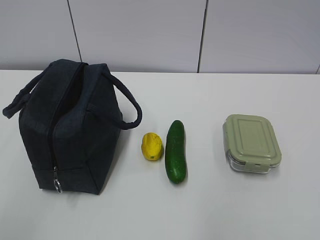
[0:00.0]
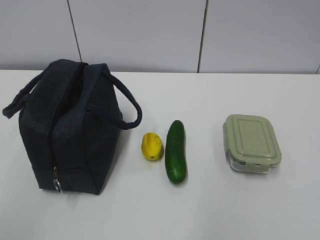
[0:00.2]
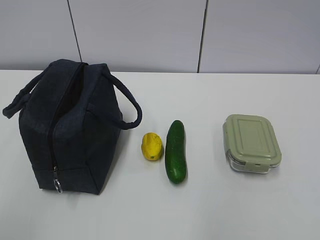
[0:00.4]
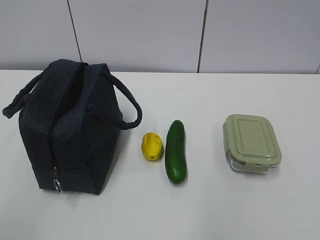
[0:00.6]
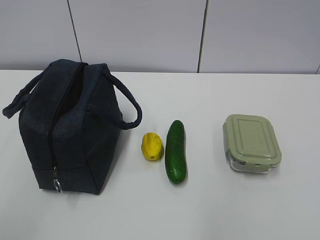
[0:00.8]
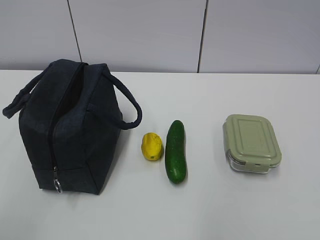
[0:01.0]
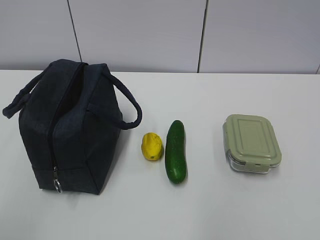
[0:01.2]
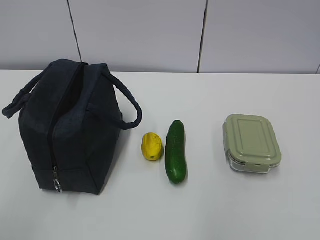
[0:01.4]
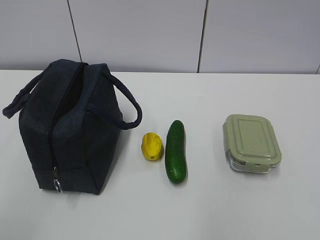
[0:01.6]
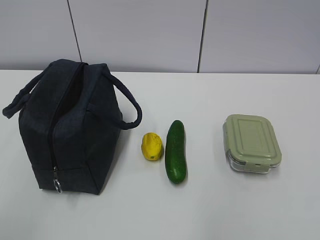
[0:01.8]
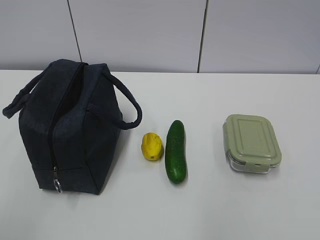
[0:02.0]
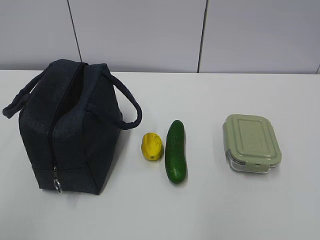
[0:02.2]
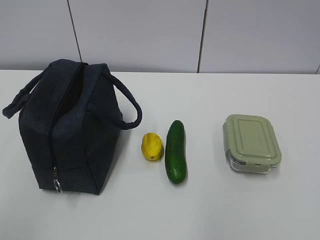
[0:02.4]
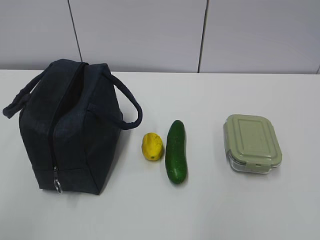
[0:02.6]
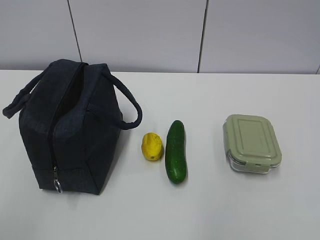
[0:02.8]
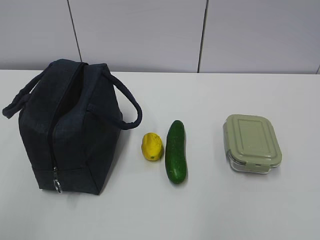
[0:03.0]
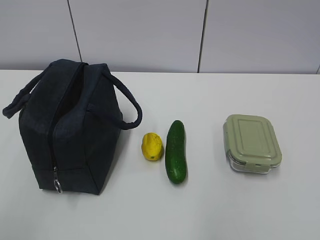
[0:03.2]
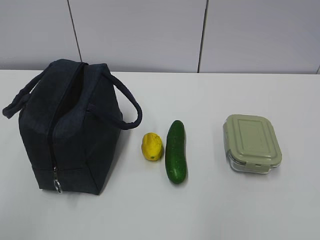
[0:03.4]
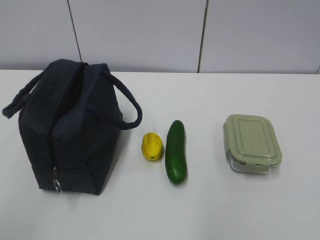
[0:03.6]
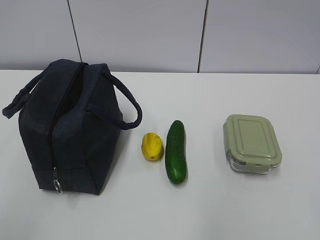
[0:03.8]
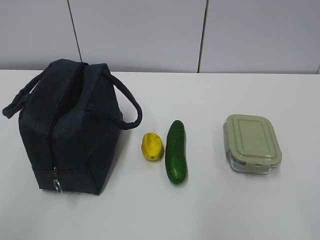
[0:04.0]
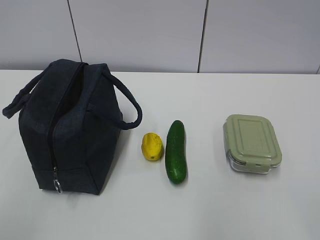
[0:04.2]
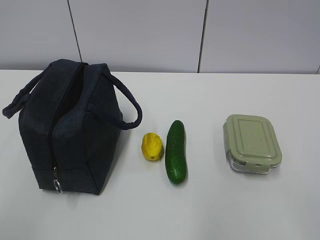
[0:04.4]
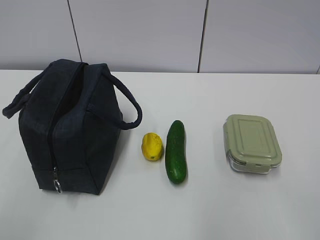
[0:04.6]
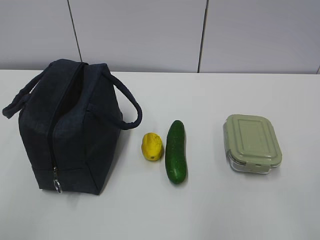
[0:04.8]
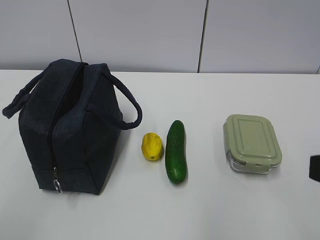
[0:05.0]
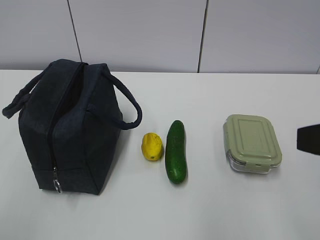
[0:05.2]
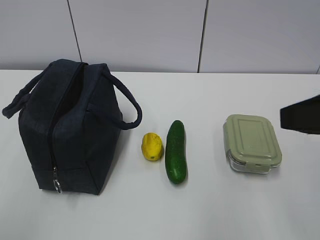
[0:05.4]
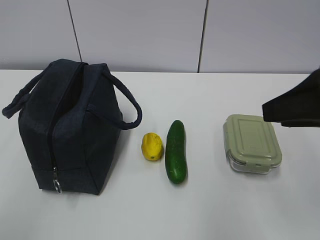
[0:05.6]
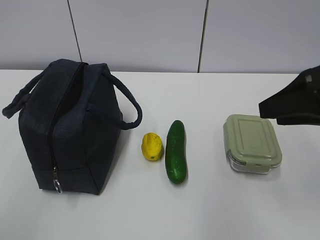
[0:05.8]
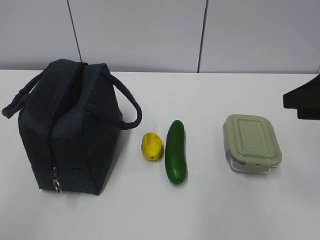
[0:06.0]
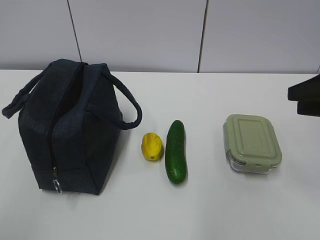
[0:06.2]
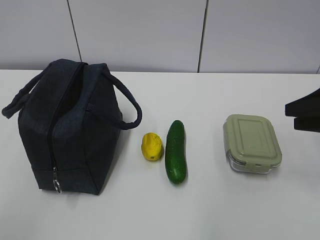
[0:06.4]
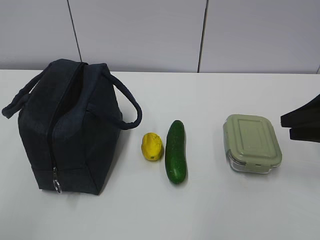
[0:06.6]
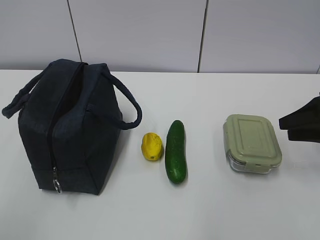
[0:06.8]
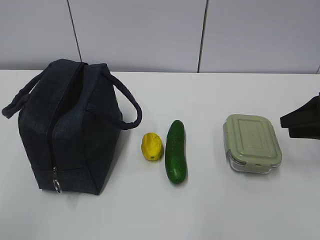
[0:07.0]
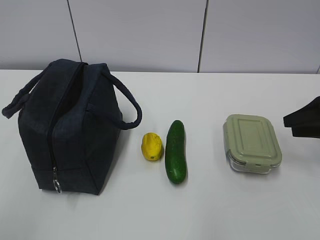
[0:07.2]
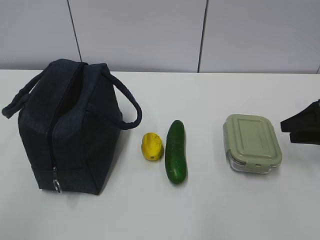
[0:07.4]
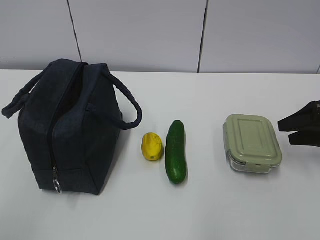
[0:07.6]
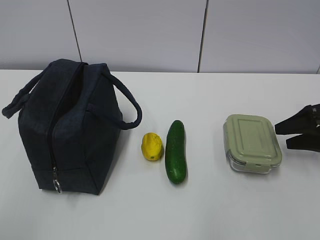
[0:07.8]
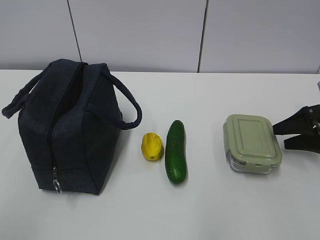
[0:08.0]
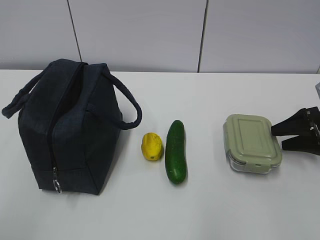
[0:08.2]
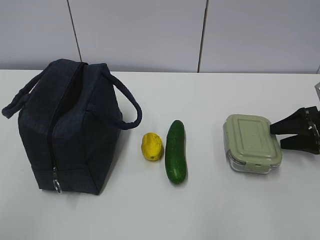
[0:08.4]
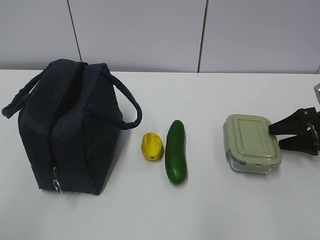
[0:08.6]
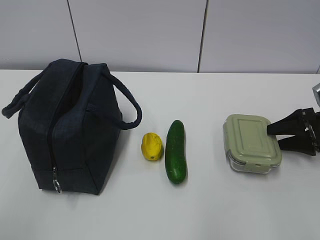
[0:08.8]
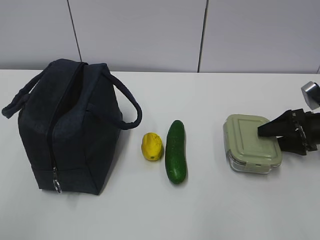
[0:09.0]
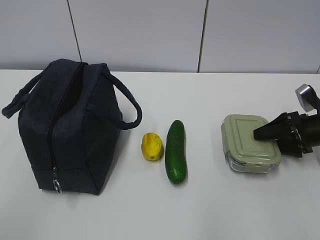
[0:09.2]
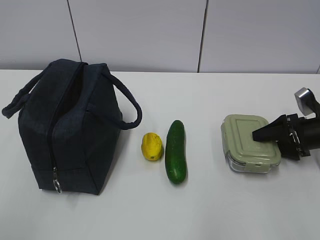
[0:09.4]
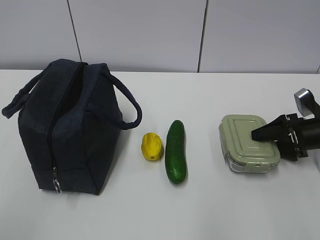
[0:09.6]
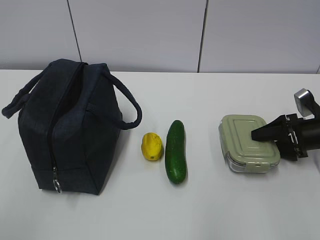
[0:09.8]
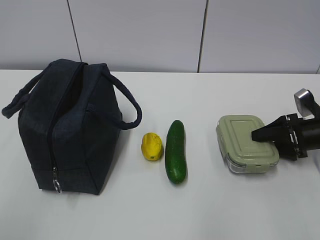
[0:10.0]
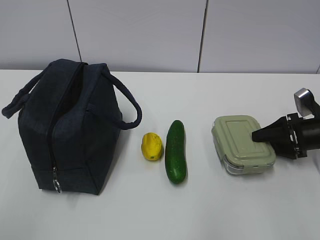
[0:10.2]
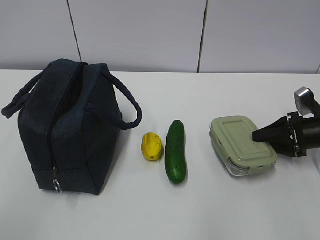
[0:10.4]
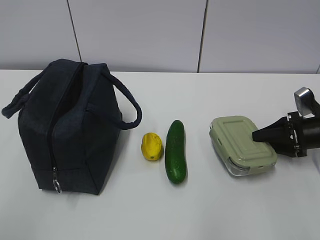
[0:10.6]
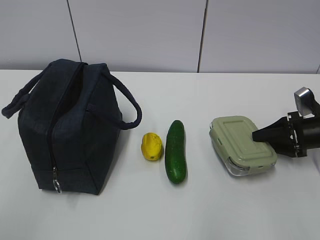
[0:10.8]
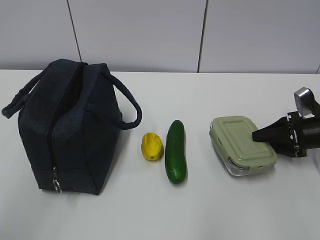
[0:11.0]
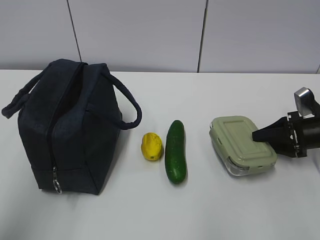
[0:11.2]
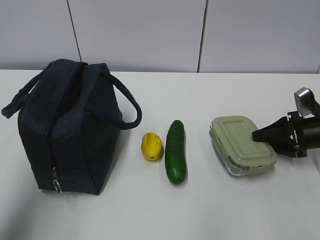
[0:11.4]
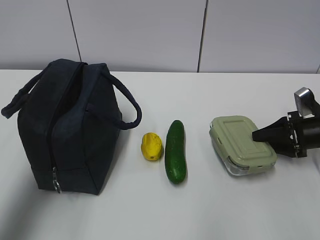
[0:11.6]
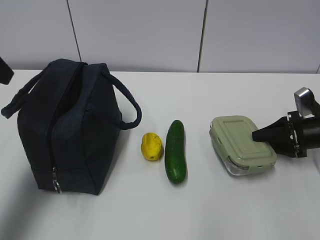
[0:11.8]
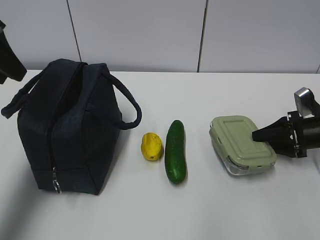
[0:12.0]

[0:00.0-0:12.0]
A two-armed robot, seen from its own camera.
0:01.6 to 0:03.0: Neither gripper changes place.
0:04.4 to 0:06.0: The right gripper shifts approximately 20 cm forward.
0:06.0 to 0:07.6: The right gripper heads downward, forward and to the right, covering approximately 20 cm.
0:07.6 to 0:09.0: The right gripper heads downward, covering some 5 cm.
0:09.0 to 0:10.4: The right gripper closes its fingers.
0:10.4 to 0:12.0: The left gripper is displaced forward by roughly 30 cm.

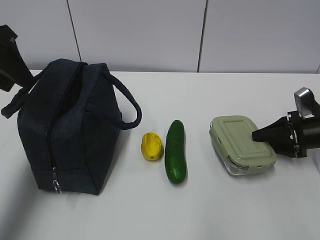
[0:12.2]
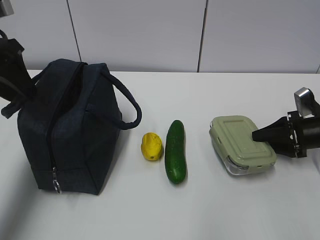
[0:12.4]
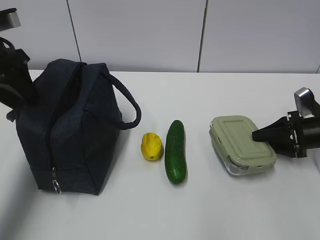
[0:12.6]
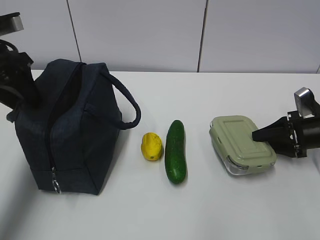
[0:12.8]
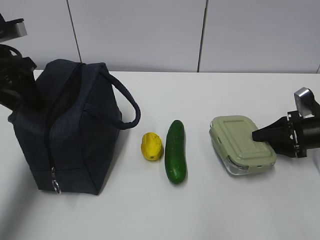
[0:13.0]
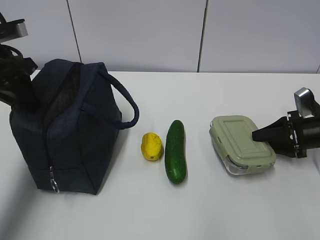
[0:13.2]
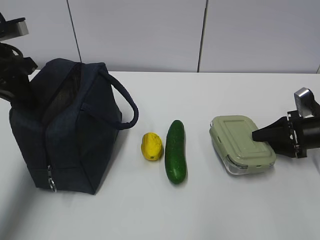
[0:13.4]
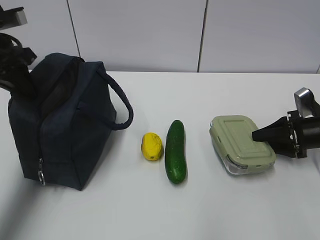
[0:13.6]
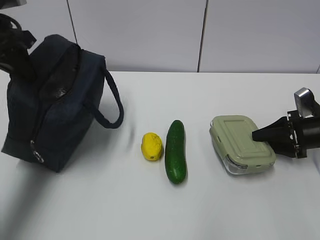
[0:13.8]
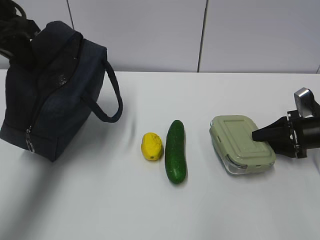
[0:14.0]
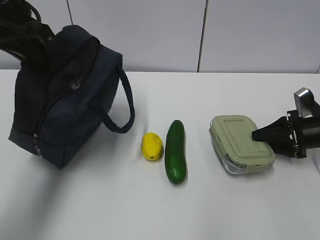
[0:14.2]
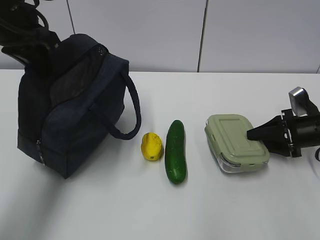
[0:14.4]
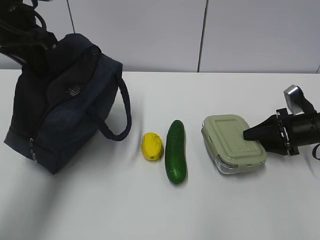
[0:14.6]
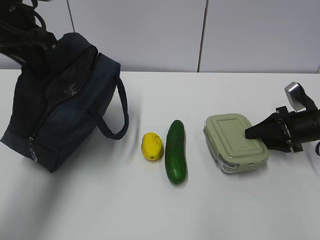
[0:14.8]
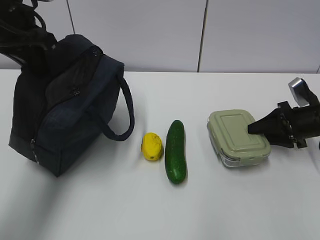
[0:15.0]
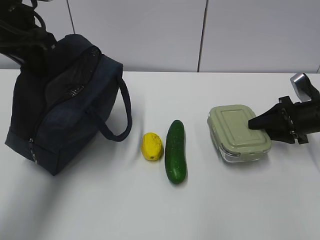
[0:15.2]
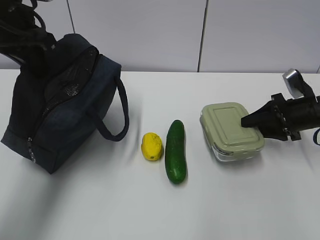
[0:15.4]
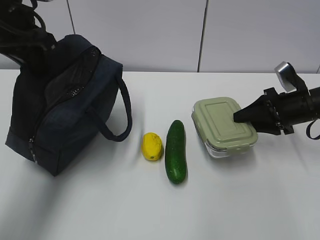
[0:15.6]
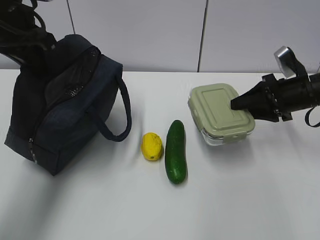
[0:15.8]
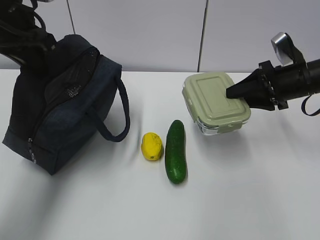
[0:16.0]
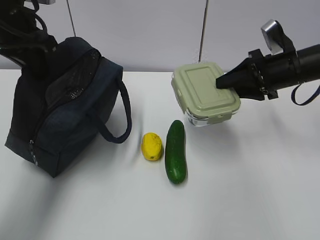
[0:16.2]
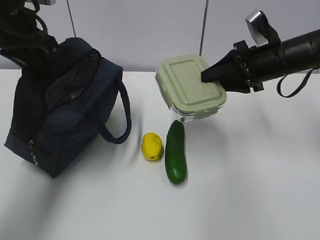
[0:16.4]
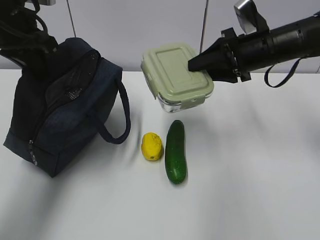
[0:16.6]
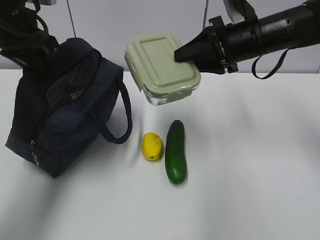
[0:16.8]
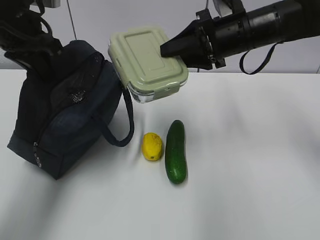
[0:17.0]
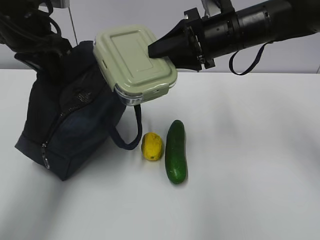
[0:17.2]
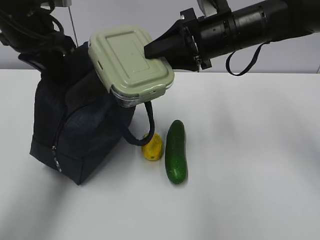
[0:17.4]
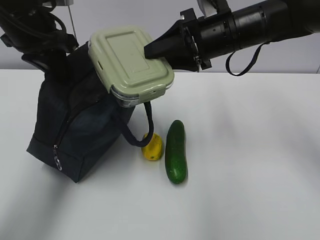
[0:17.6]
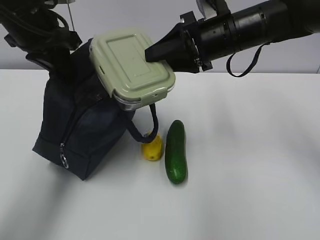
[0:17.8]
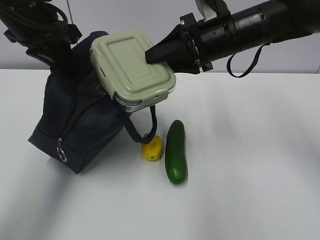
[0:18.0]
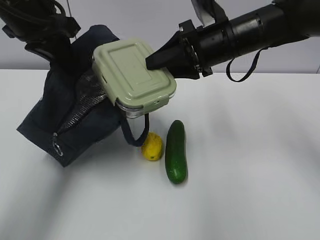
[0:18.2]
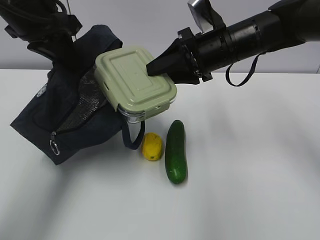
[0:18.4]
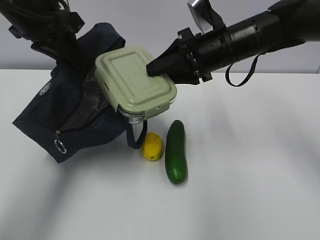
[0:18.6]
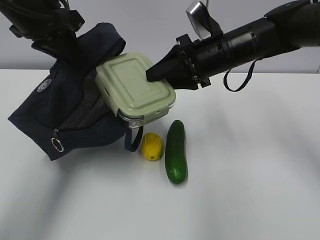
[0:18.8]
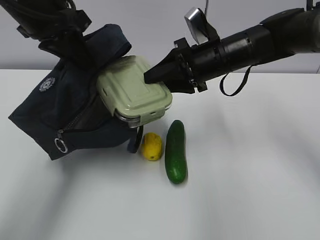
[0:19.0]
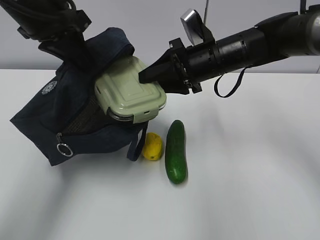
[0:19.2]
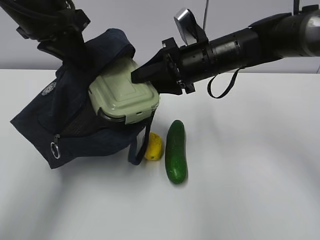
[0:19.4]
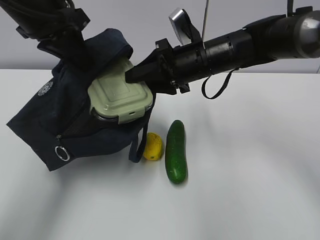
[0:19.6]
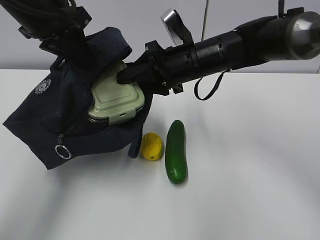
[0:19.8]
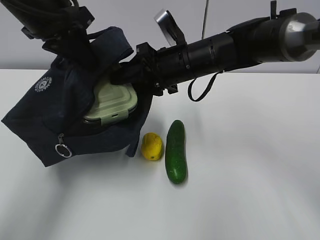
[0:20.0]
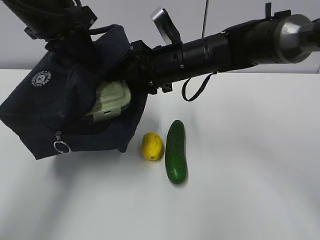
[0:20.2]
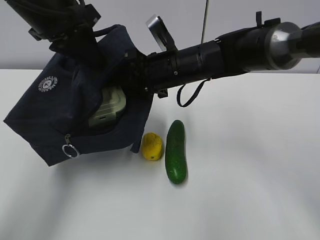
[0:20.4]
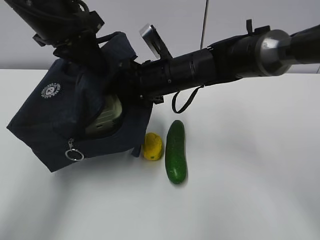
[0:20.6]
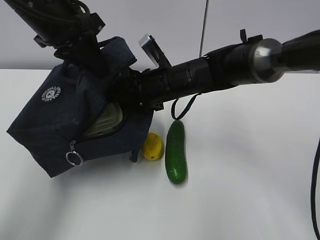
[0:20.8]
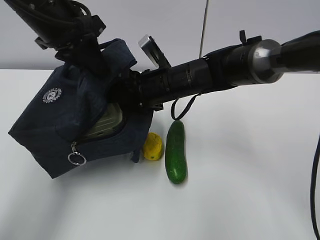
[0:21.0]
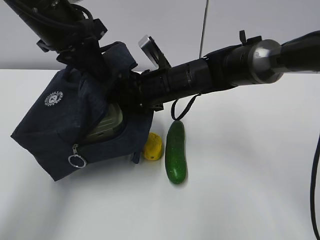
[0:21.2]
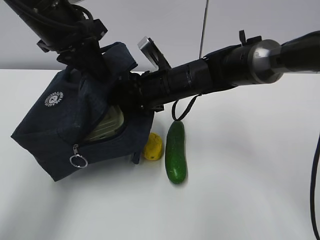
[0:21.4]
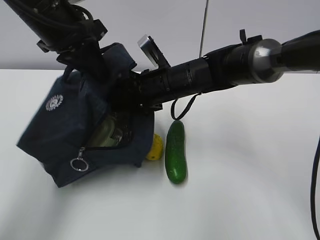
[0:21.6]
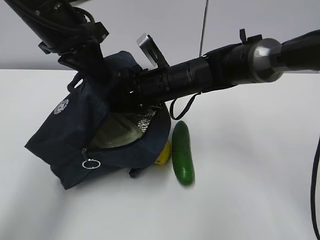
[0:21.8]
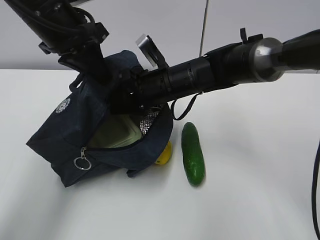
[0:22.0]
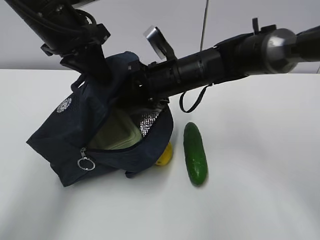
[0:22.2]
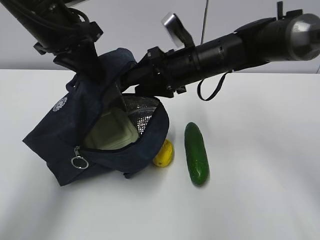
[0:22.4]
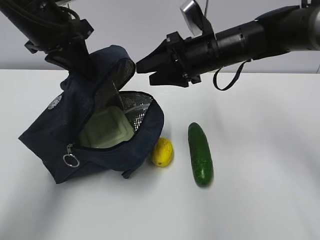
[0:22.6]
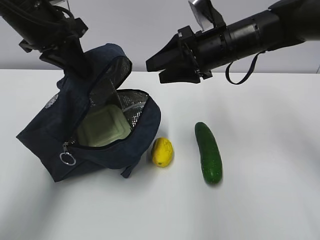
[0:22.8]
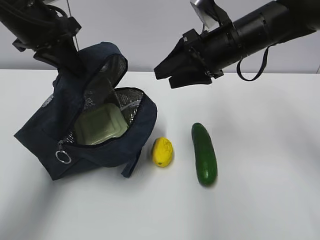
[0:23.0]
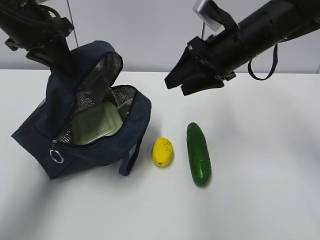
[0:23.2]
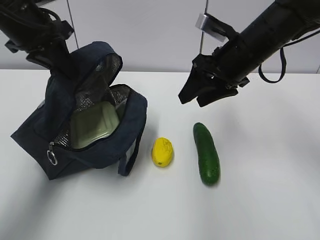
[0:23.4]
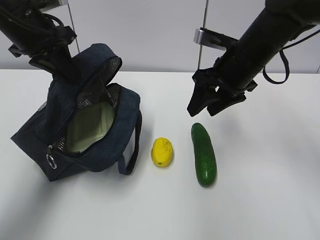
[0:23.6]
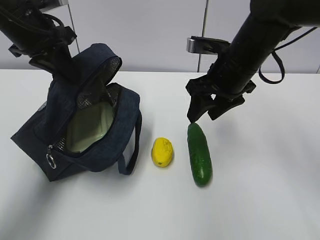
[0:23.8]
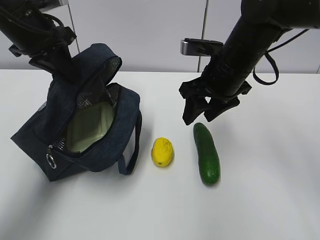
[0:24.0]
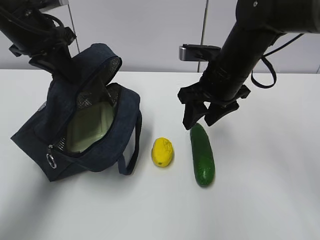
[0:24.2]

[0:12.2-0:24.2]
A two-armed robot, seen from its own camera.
Step, 0:12.4 to 0:15.4: Grab the lunch bag with your left hand.
Step, 0:15.6 to 0:18.2: Place it into the bag with your right hand.
Step, 0:18.4 to 0:21.4: Grab the cucumber with your right hand.
Step, 0:21.6 to 0:23.8: Place it into the bag with your right hand.
0:12.2 to 0:13.8: The left gripper closes up.
0:13.8 to 0:15.2: The grippers move only a little.
0:15.2 to 0:16.6: The right gripper moves to the left and upward, roughly 20 cm.
0:16.6 to 0:18.2: The right gripper shifts roughly 5 cm to the left.
0:18.2 to 0:19.8: The right gripper heads to the left, covering some 5 cm.
0:19.8 to 0:21.2: The right gripper changes place by some 5 cm.
0:21.2 to 0:22.6: The right gripper goes some 10 cm to the right and upward.
